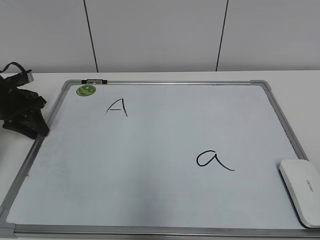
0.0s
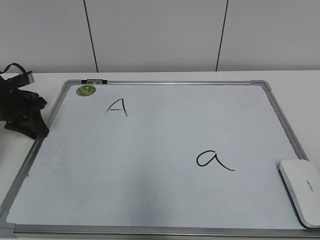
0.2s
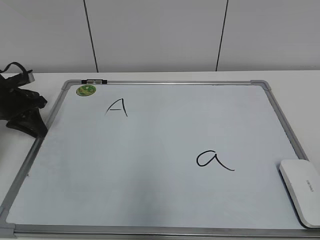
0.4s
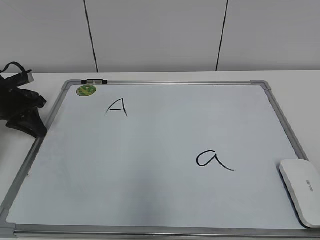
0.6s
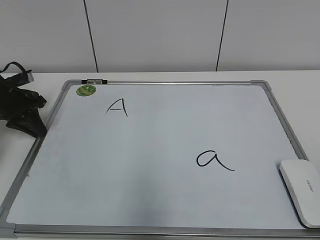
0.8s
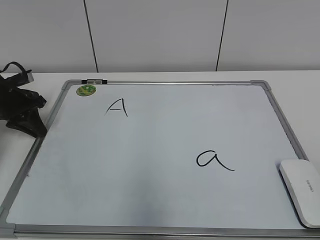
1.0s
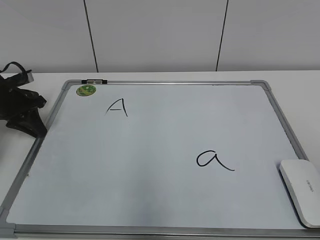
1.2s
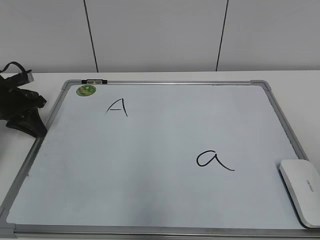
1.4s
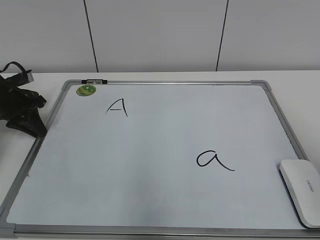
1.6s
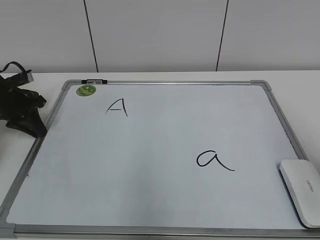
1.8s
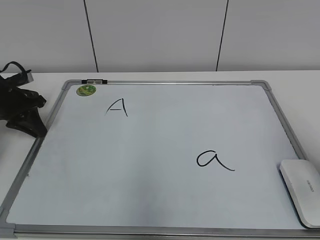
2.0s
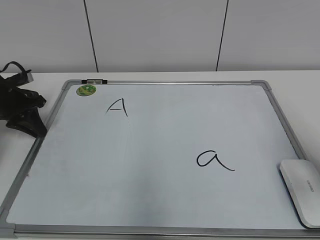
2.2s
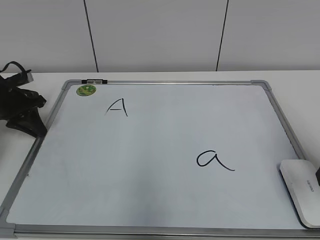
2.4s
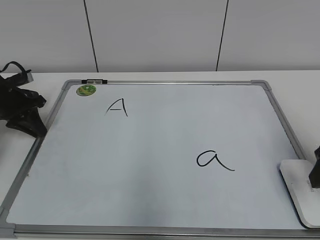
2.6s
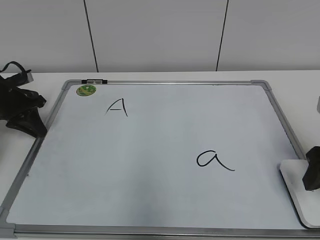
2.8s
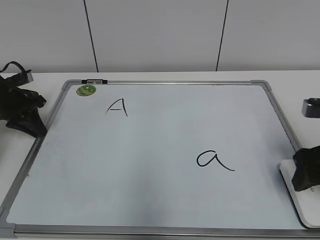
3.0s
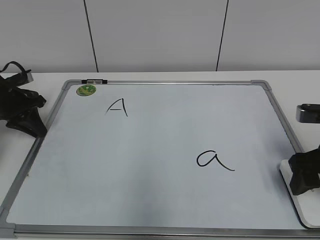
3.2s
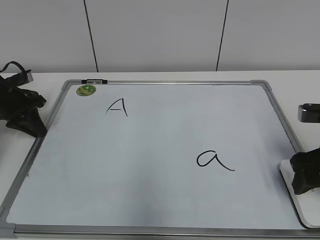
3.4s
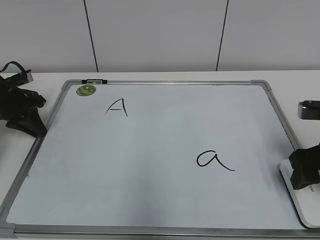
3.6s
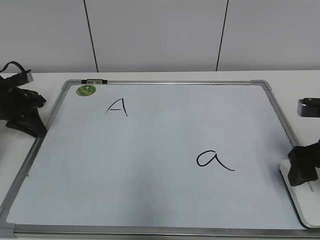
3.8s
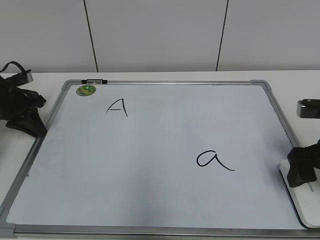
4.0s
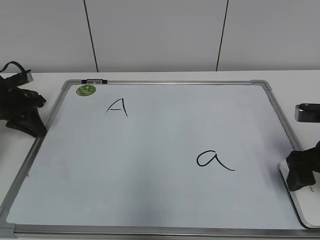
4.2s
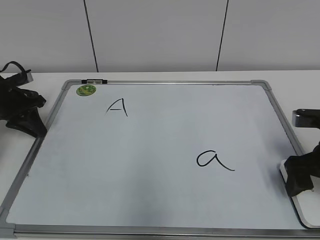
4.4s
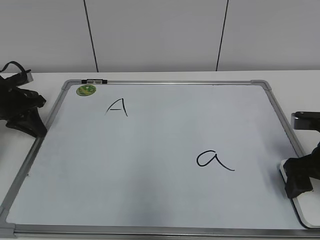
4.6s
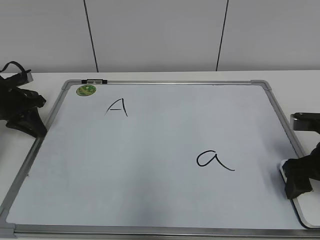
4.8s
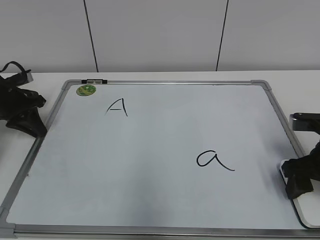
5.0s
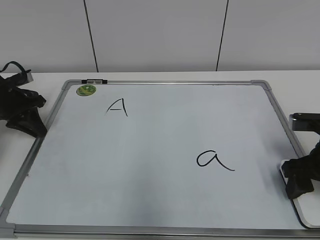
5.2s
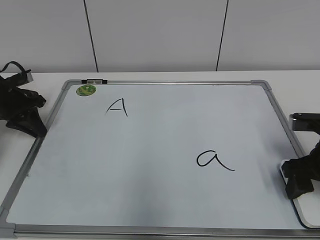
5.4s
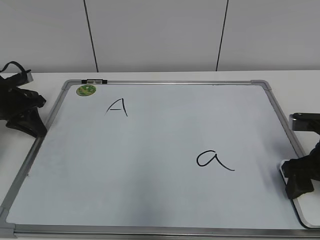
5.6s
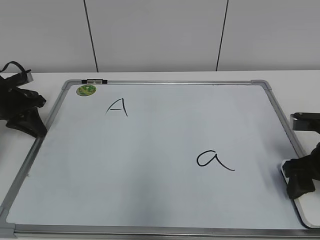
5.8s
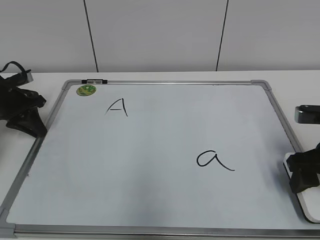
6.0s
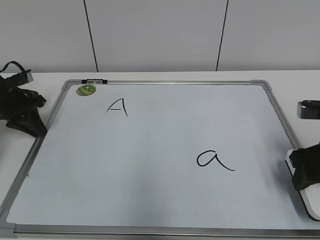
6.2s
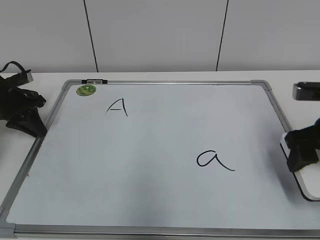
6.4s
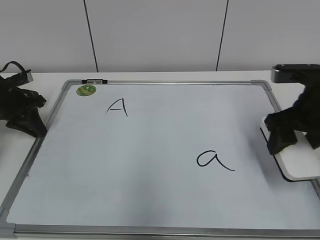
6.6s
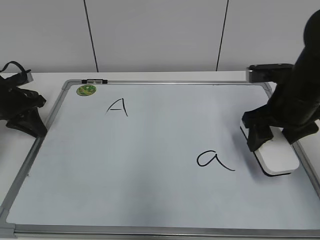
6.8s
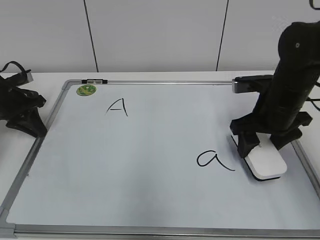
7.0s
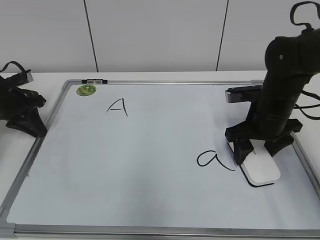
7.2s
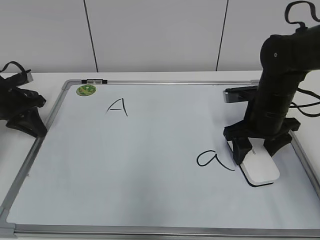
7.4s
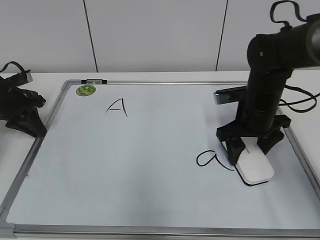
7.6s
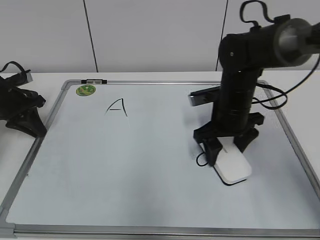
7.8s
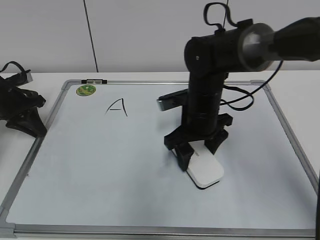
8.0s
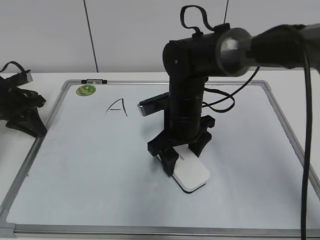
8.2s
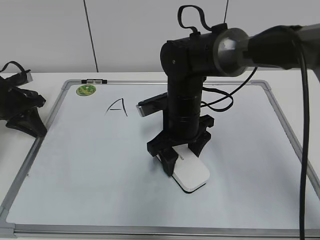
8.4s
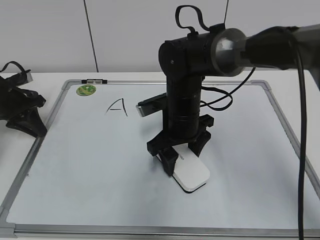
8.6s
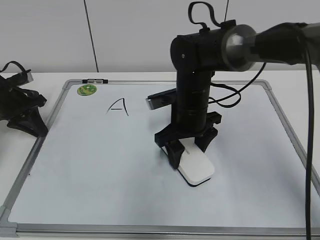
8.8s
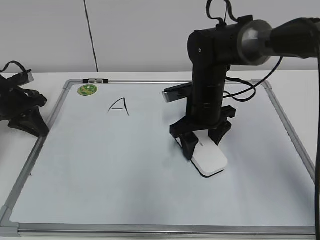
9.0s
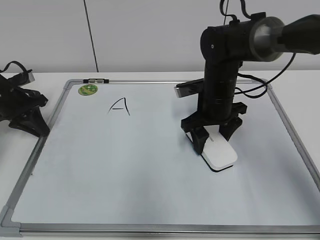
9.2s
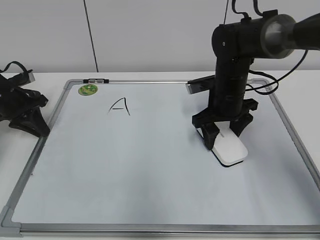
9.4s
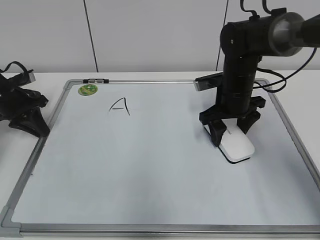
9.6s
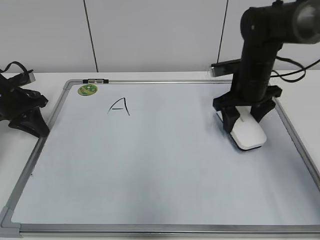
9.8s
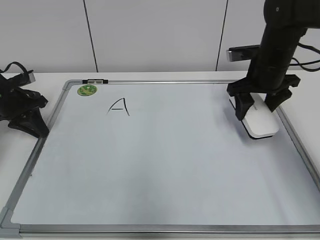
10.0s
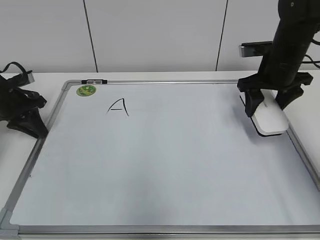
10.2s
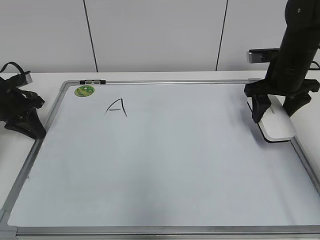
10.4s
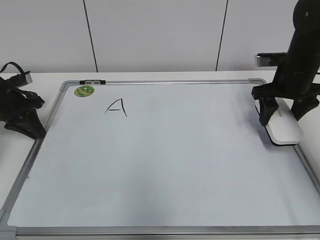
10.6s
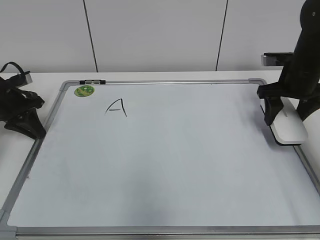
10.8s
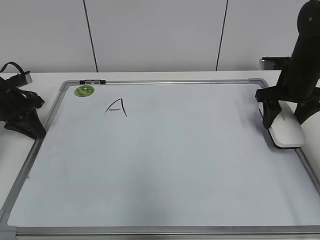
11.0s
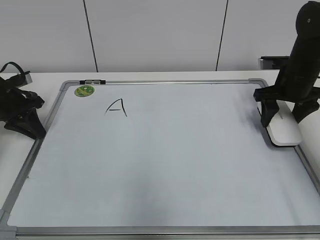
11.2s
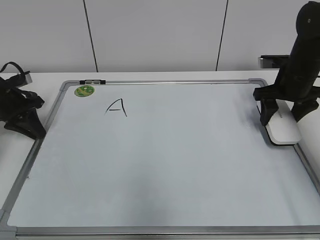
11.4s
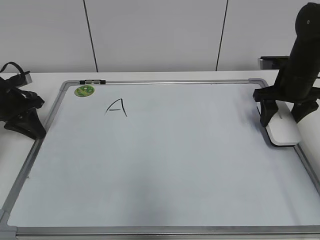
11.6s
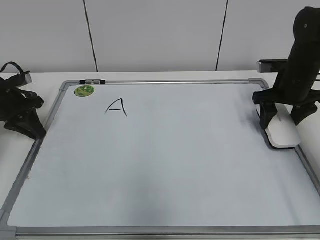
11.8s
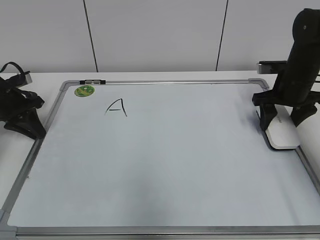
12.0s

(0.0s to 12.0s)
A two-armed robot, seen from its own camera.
Task of the whole recording: pick up the eraser on the blackboard and erase the letter "a".
Step, 0.6s - 5.2s: Grab the eraser with your right hand.
Step, 5.4s - 9.4s: Erase the letter a with your right hand.
1.6s - 3.0s: The right gripper moves forward and downward, approximately 20 cm.
3.0s - 4.4s: The right gripper opens up.
4.4s - 6.0s: The right gripper closes up.
6.0s - 7.6s: The right gripper moves forward and to the left, approximately 15 cm.
7.6s - 9.0s: The right gripper heads to the left, covering roughly 10 cm.
9.0s - 10.4s: The right gripper shifts roughly 15 cm to the right.
10.4s - 12.0s: The grippers make only small movements.

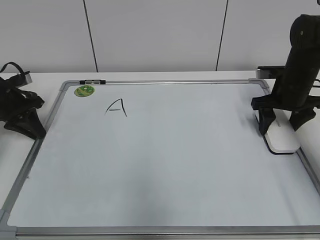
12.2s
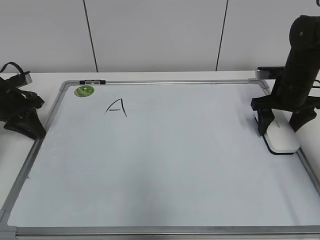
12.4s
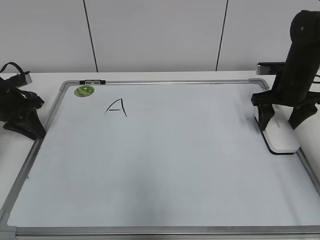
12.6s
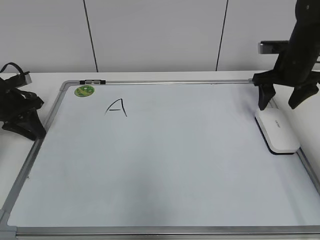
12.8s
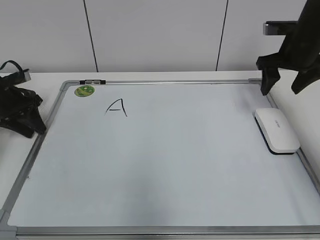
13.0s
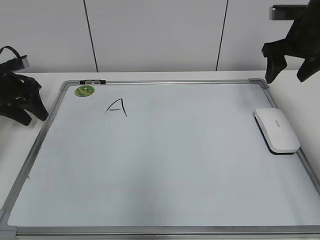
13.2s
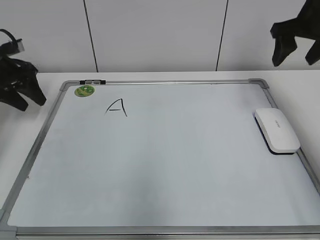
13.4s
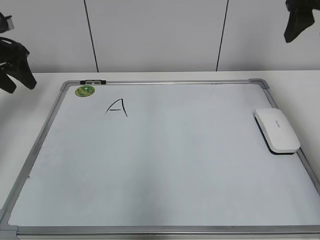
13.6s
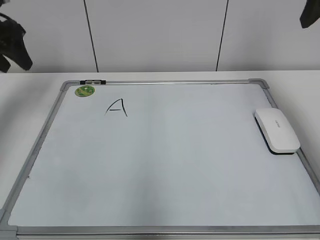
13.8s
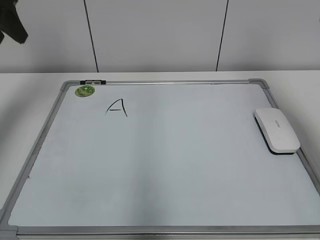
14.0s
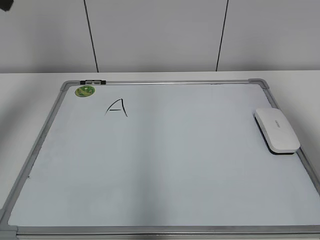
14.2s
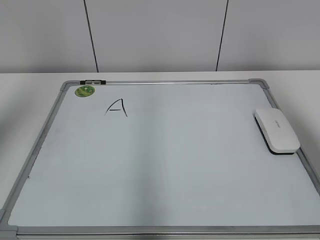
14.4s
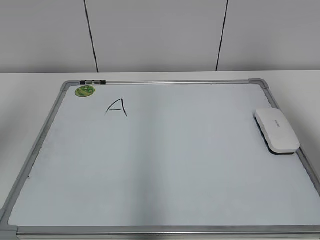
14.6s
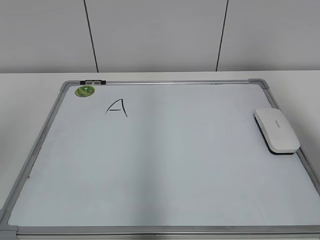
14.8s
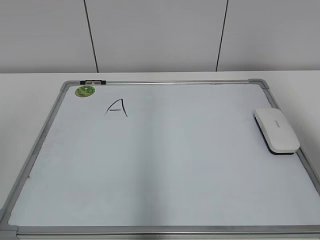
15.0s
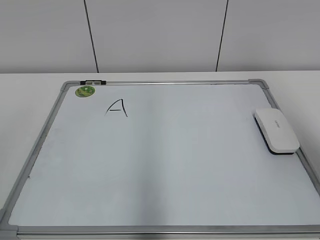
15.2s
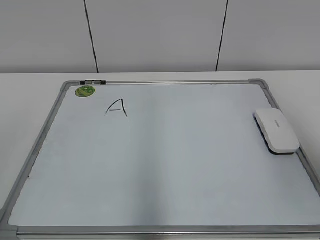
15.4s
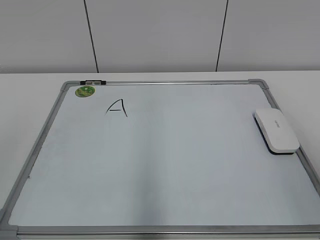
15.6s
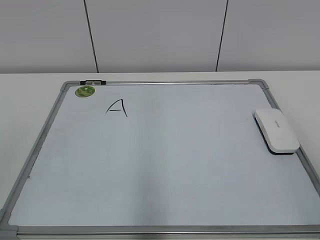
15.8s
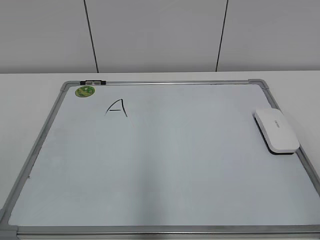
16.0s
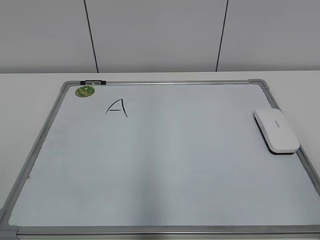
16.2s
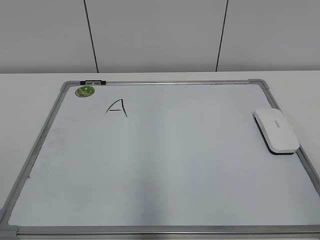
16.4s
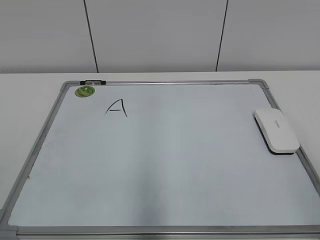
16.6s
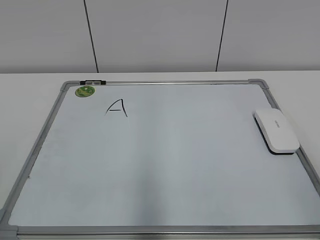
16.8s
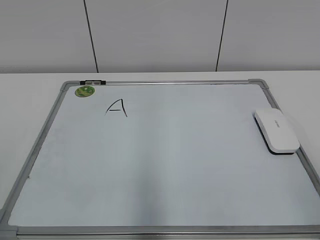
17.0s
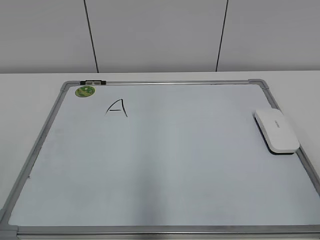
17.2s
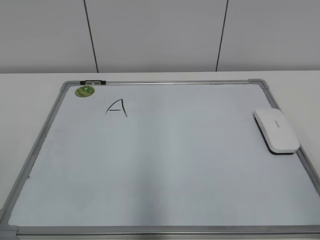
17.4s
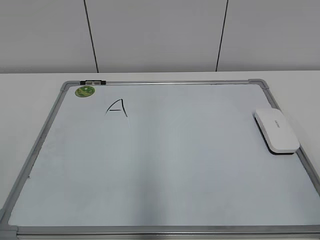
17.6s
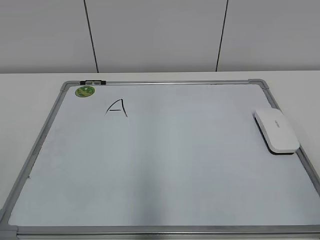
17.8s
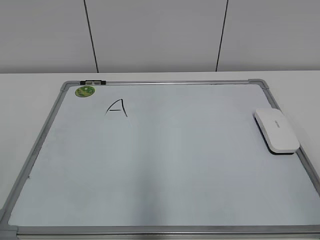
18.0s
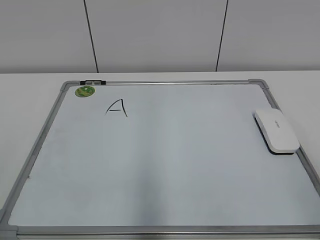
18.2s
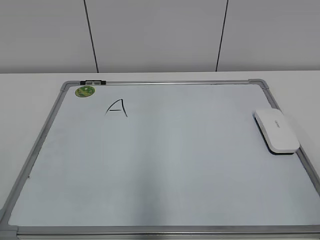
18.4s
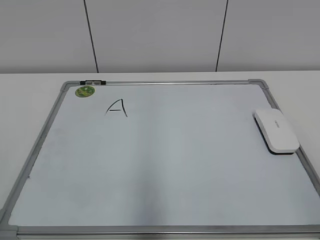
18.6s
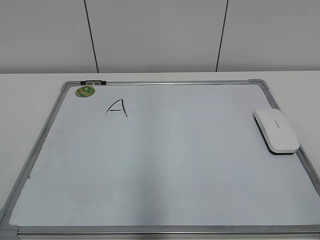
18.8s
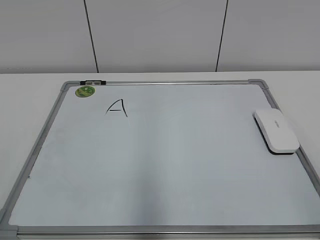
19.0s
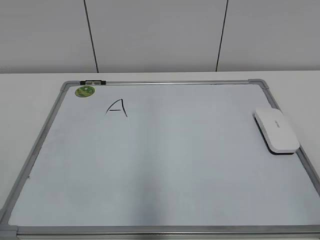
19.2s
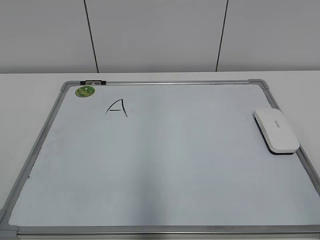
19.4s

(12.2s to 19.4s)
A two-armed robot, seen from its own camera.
Task of the whole recording: pick up the eraser on the blackboard and erase the letter "a".
12.2s - 13.6s: The right gripper heads upward, covering approximately 20 cm; the left gripper is displaced upward by roughly 10 cm, and opens its fingers.
13.6s - 15.0s: The left gripper travels backward and upward by some 40 cm, while the right gripper shifts about 20 cm backward and upward.
15.0s - 16.6s: The right gripper is displaced backward and downward by some 25 cm, and closes, then reopens.

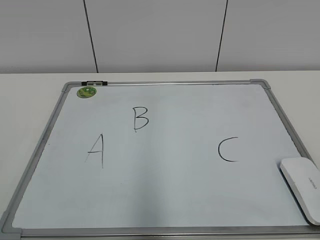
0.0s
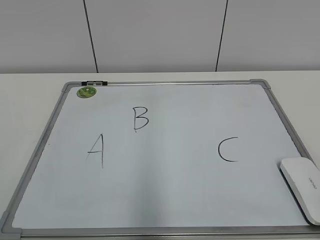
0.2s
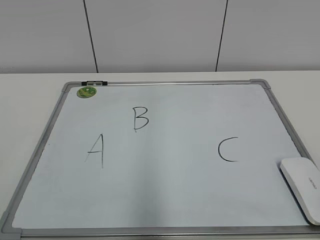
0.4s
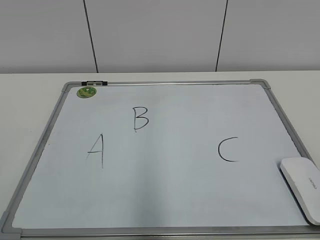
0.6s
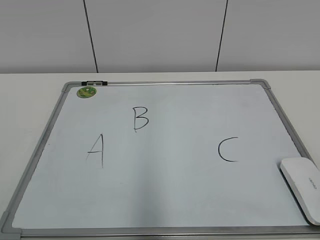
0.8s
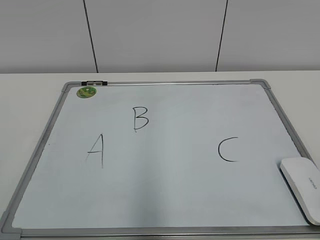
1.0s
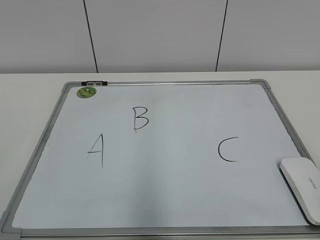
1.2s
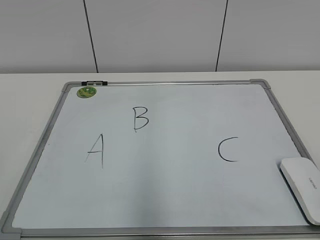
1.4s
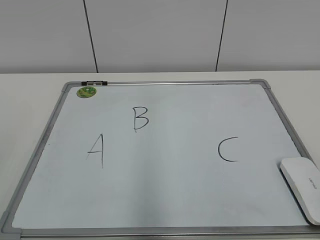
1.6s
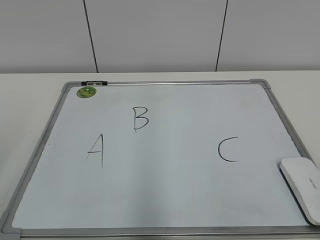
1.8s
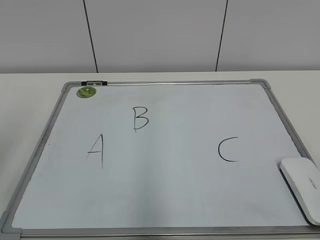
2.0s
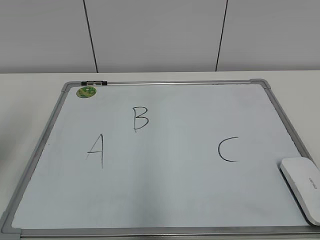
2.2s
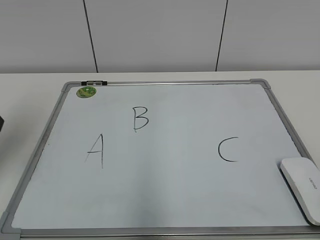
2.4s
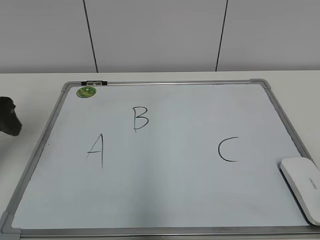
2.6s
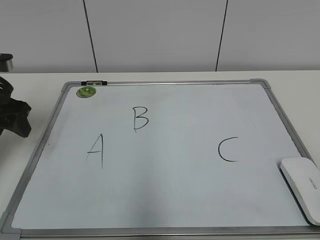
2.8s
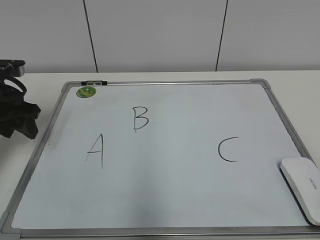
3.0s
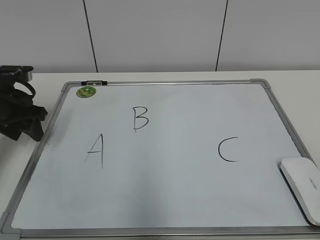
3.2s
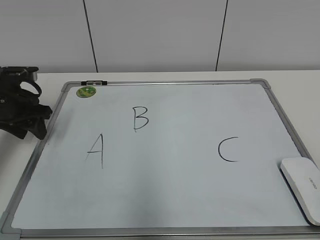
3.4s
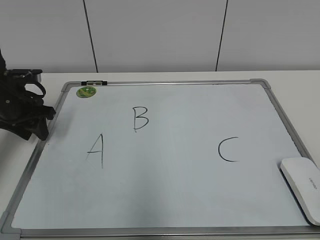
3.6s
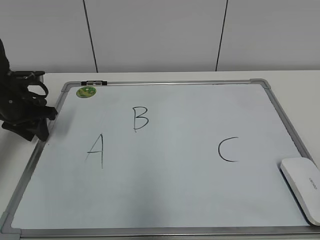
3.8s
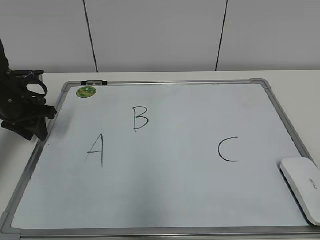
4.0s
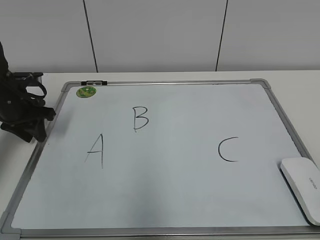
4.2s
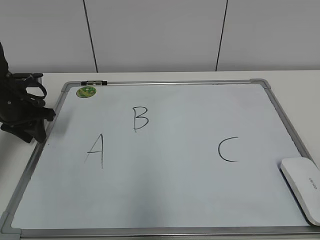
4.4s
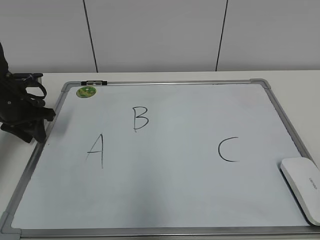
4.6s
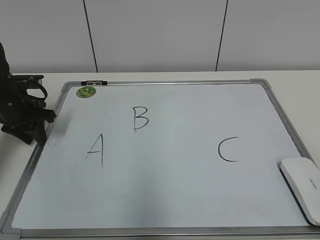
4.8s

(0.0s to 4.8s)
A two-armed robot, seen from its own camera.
Task of the whole recording: pick up the eraser on the blackboard and erase the letter "B".
Step, 0.0s - 4.6s: Hold the drawing board steady with your left hand.
1.6s - 3.2s: The left gripper shifts about 35 cm forward and downward.
3.2s - 4.8s: The grippers move only a little.
